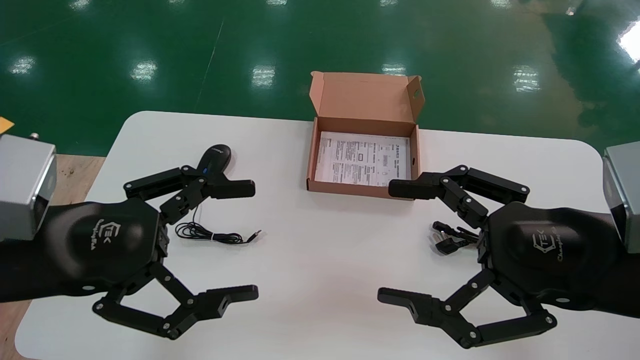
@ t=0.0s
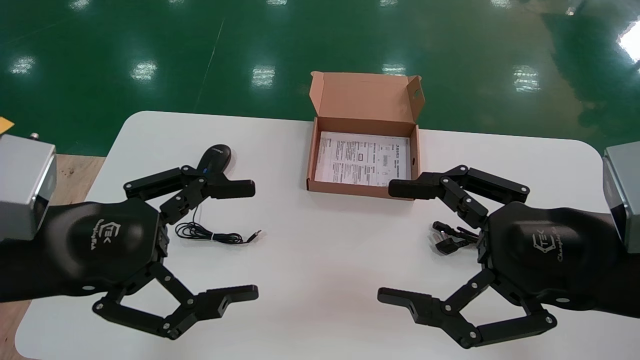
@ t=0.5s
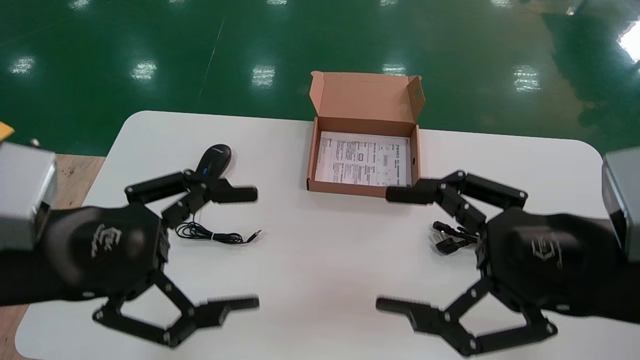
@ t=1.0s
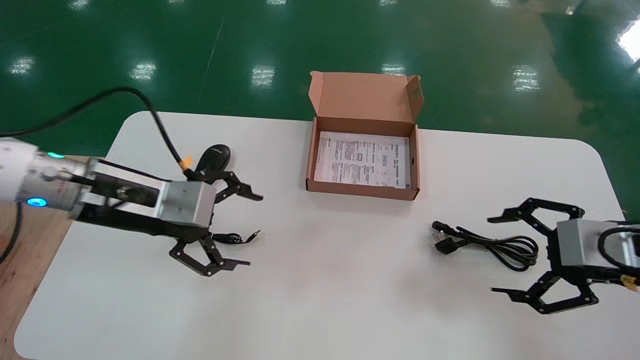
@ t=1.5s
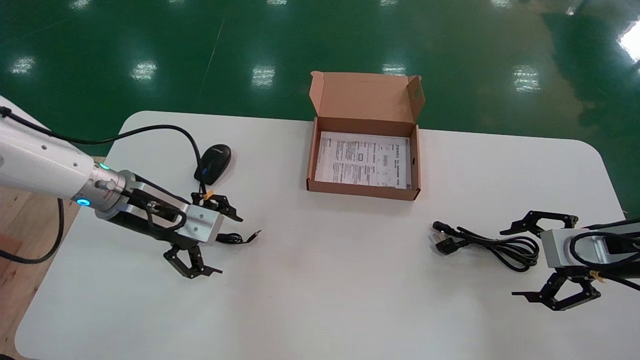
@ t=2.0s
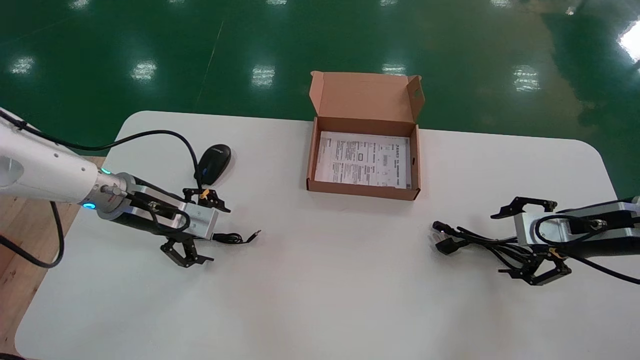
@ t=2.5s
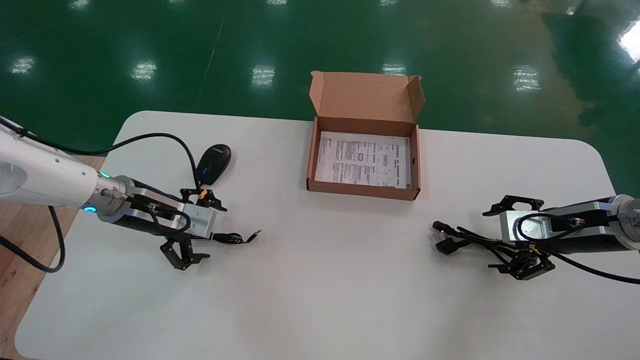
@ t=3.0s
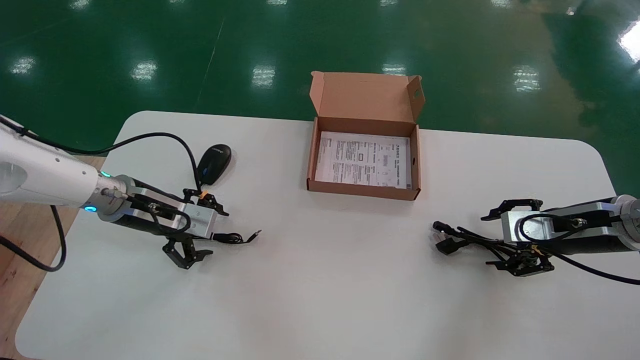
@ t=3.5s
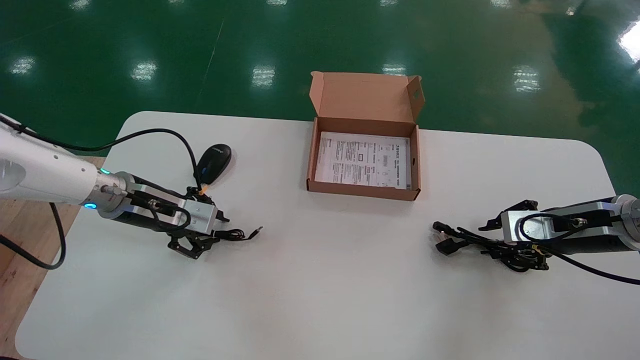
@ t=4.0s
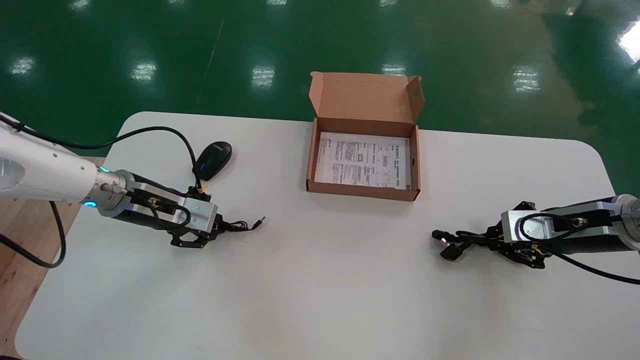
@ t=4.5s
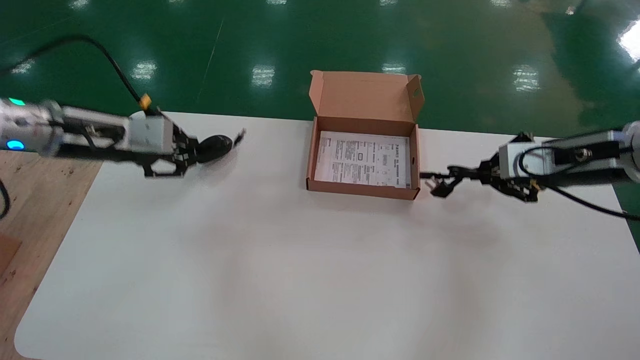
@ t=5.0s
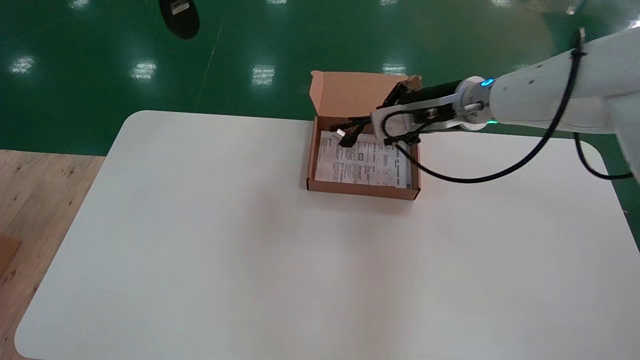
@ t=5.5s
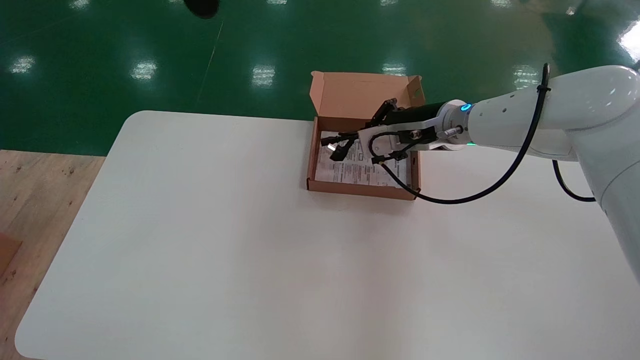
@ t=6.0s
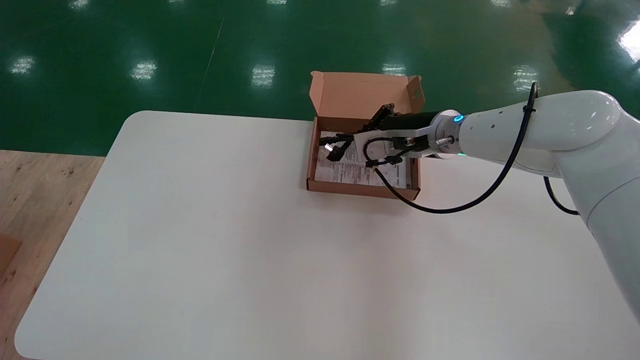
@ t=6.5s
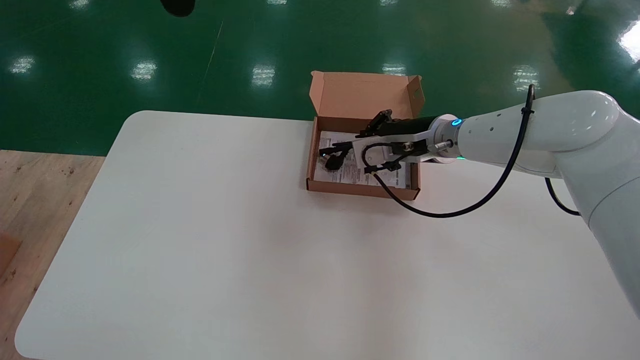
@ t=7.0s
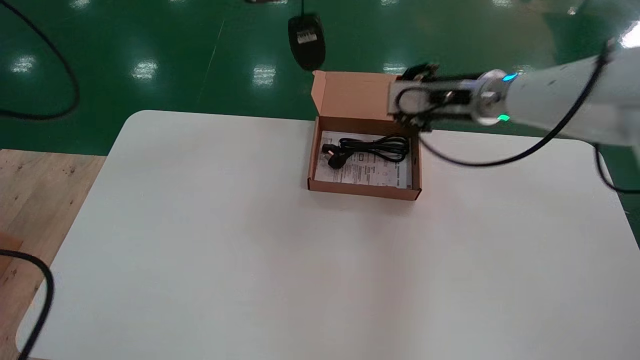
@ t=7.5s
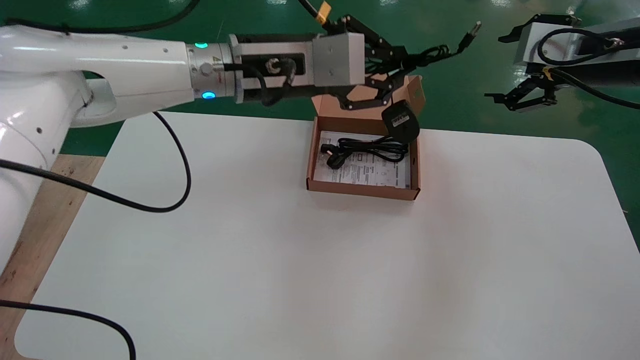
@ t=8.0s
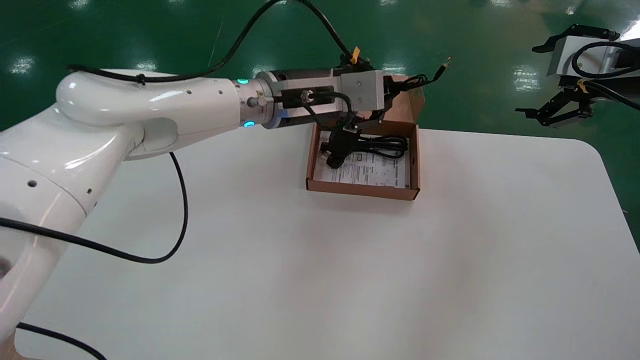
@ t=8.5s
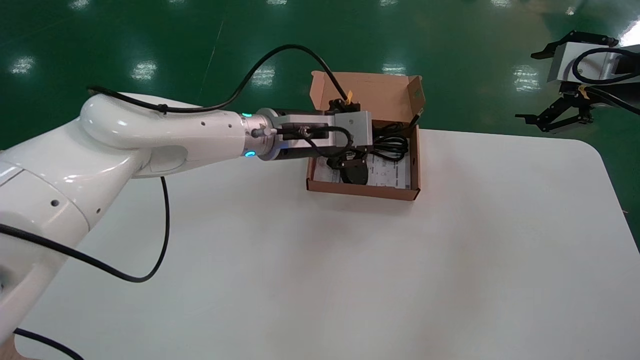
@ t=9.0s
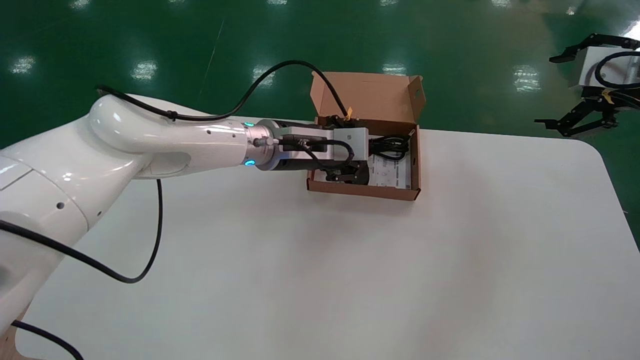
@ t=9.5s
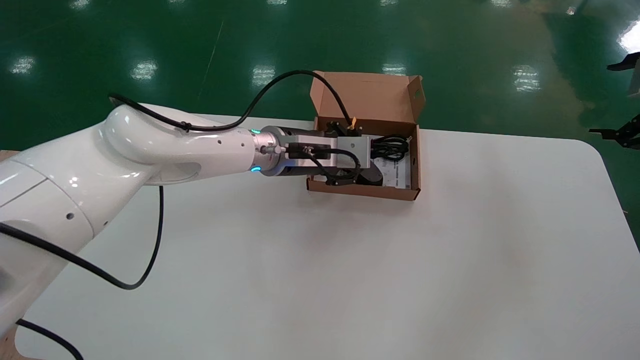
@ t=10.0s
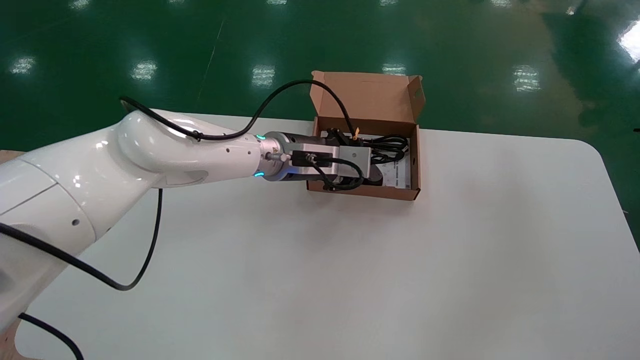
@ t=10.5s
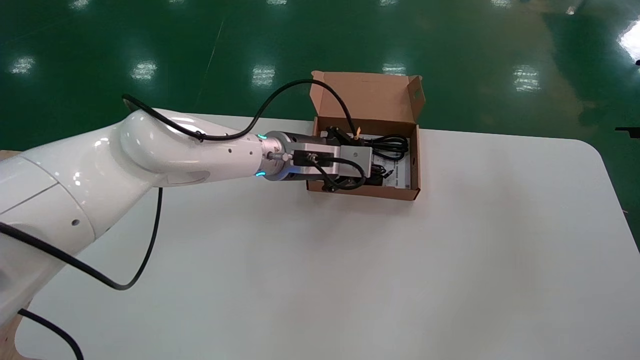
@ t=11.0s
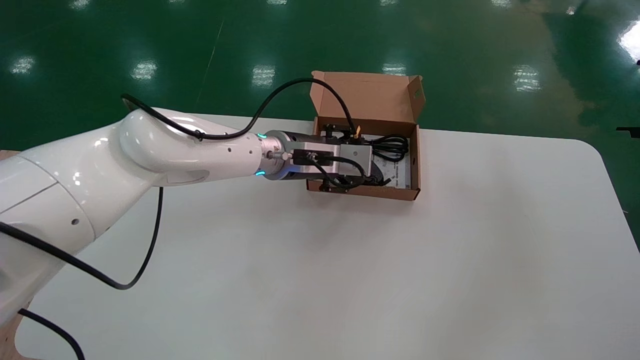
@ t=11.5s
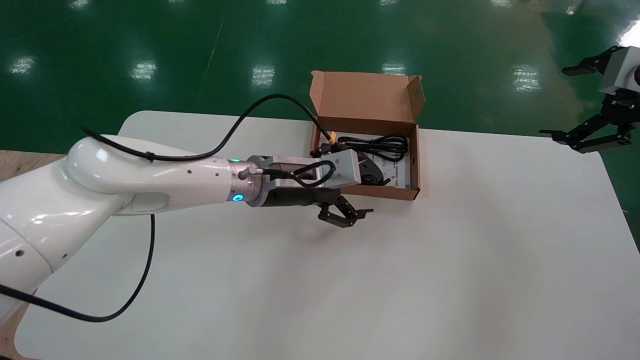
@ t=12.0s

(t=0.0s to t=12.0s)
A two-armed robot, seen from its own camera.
Step, t=1.5s - t=4.5s: Simultaneously pick up the mouse and power cord from the accessory packaging area.
Step, t=5.0s - t=11.0s: Place the mouse and power cord into the box.
t=0.0s - t=2.0s: The right gripper travels to the right and forward by roughly 20 cm. Meanwhile the left gripper is displaced forward by roughly 20 cm.
t=2.0s - t=4.0s: The right gripper goes roughly 5 cm forward, and closes, while the left gripper closes up.
t=4.0s - t=6.0s: The left gripper goes about 35 cm upward, and closes; the right gripper shifts about 25 cm to the left, upward and forward, and closes up.
t=6.0s - t=8.0s: The right gripper goes about 20 cm to the right, upward and backward, and opens its fingers. Meanwhile the left gripper travels to the right, downward and forward by some 30 cm.
t=8.0s - t=10.0s: The left gripper is displaced downward and forward by some 15 cm; the right gripper shifts about 15 cm to the right and backward.
t=10.0s - t=12.0s: The left gripper moves some 5 cm, and opens up.

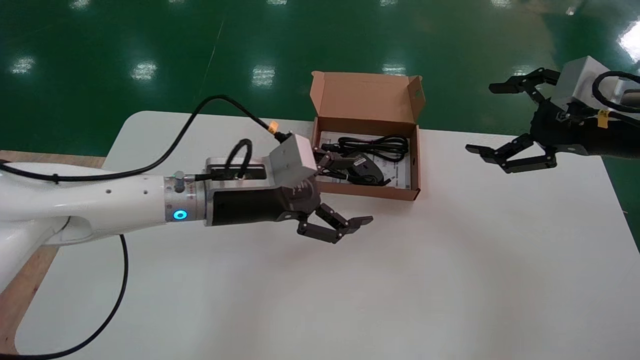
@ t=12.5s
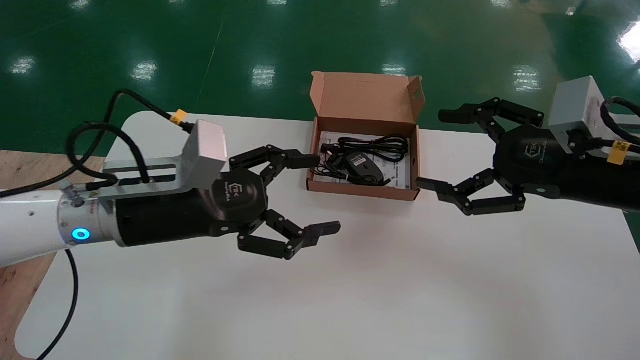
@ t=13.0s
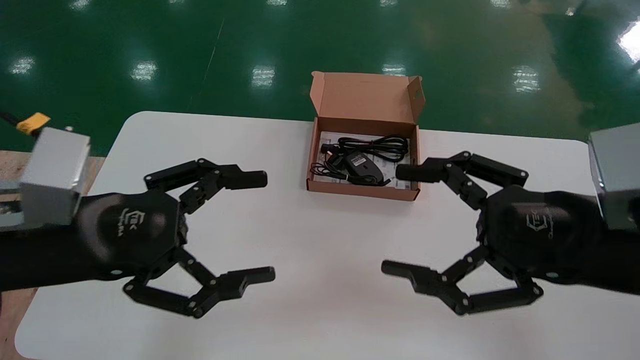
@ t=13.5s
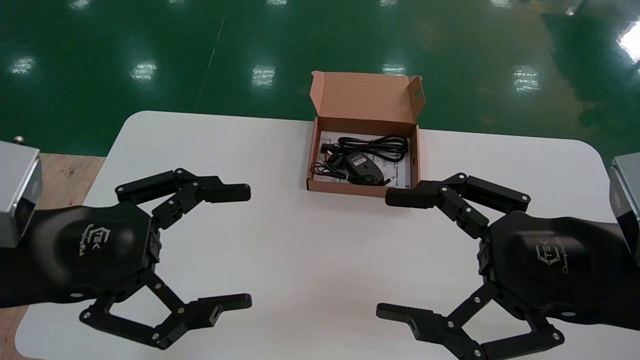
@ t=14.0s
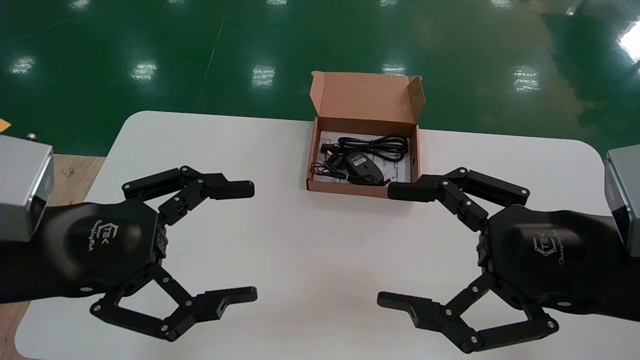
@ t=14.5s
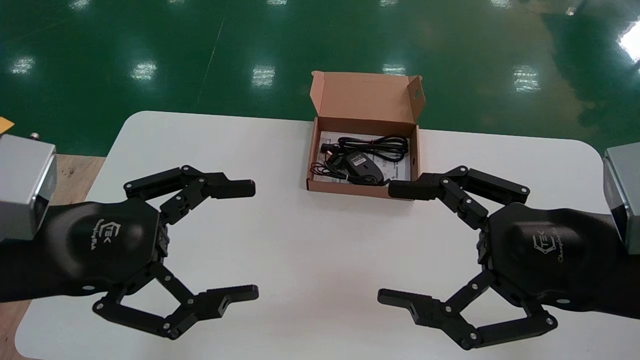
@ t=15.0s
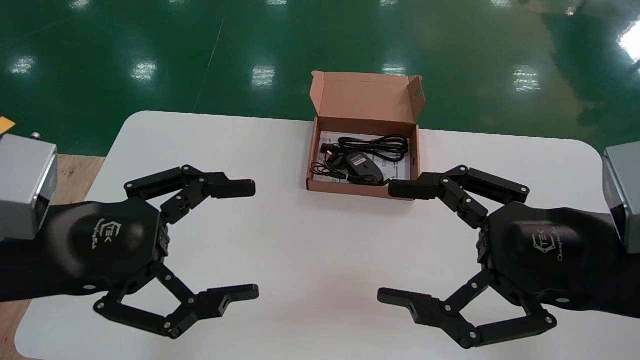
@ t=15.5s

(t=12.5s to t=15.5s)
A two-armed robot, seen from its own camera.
t=12.5s - t=14.0s: The right gripper heads backward, to the left and downward, covering some 20 cm; the left gripper is displaced backward and to the left by some 25 cm.
t=14.0s - t=15.5s: The two grippers keep their place.
